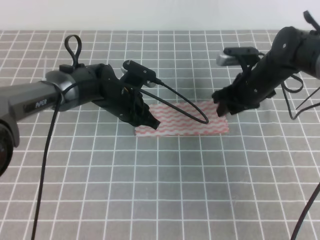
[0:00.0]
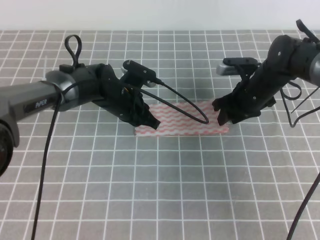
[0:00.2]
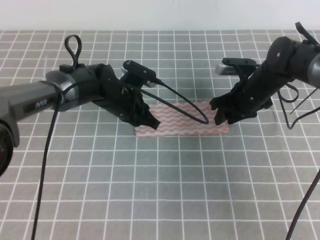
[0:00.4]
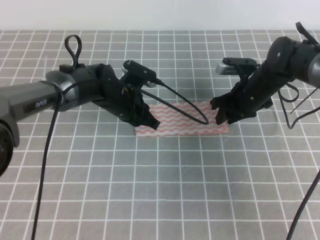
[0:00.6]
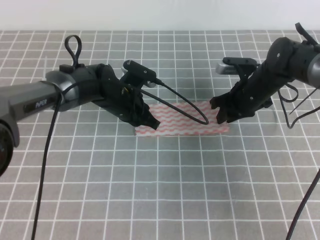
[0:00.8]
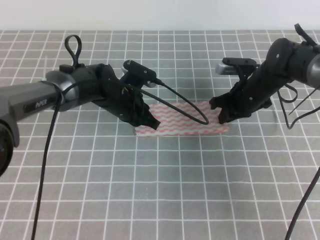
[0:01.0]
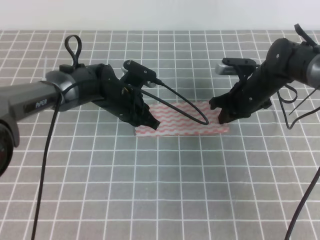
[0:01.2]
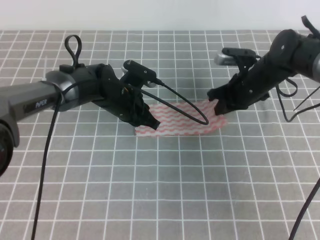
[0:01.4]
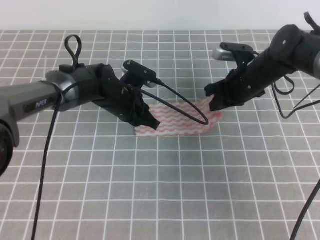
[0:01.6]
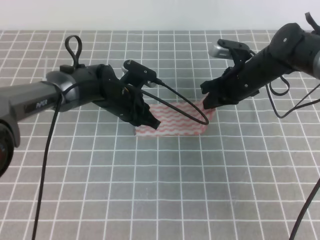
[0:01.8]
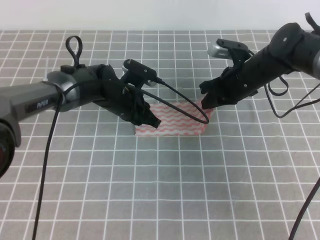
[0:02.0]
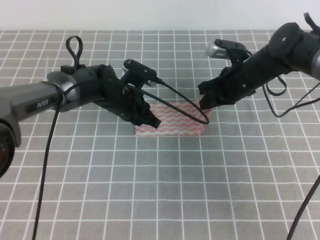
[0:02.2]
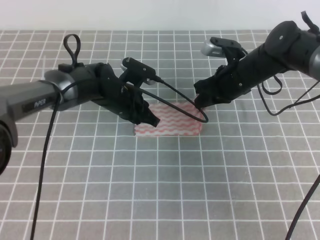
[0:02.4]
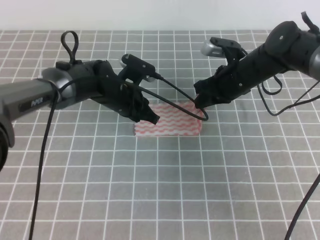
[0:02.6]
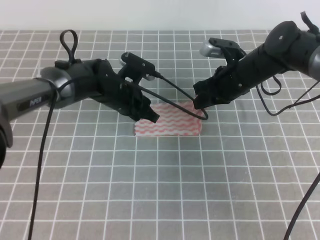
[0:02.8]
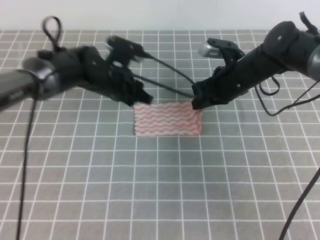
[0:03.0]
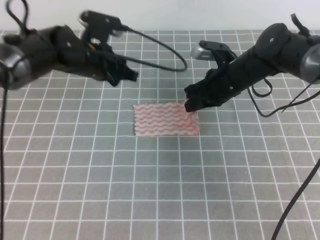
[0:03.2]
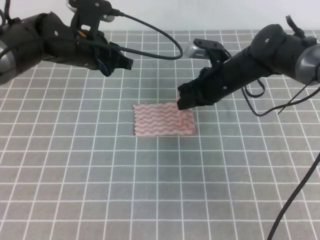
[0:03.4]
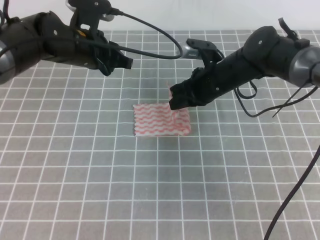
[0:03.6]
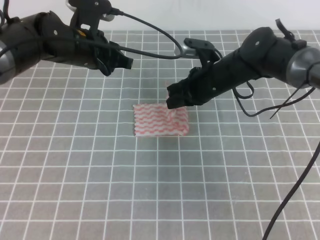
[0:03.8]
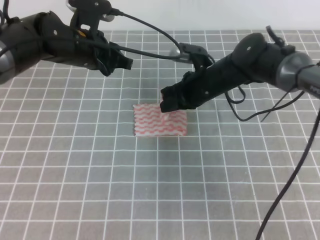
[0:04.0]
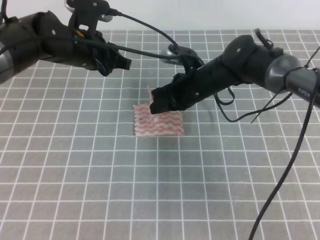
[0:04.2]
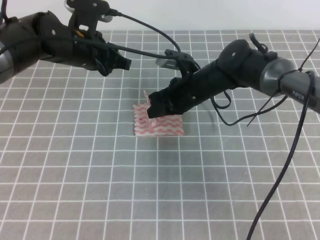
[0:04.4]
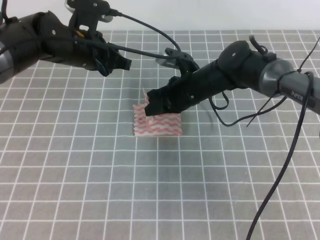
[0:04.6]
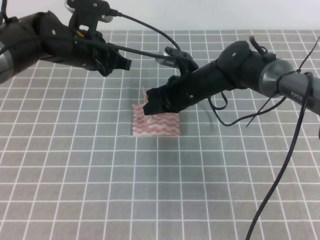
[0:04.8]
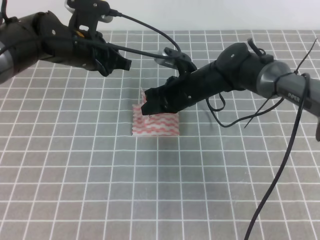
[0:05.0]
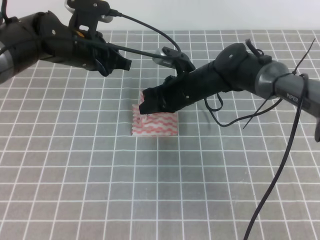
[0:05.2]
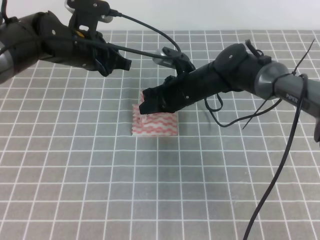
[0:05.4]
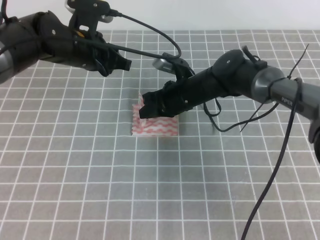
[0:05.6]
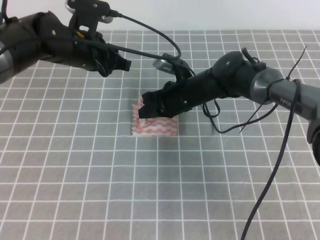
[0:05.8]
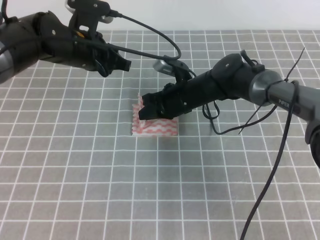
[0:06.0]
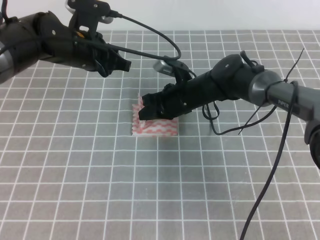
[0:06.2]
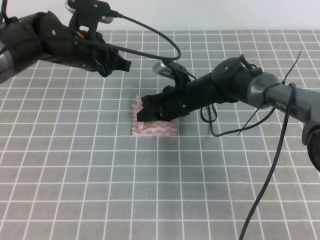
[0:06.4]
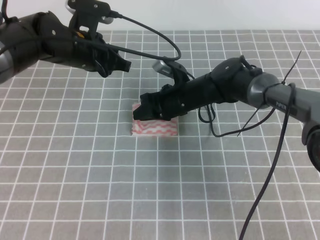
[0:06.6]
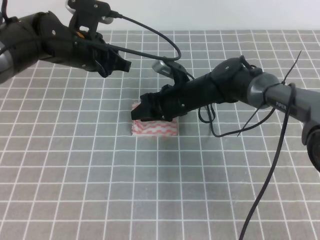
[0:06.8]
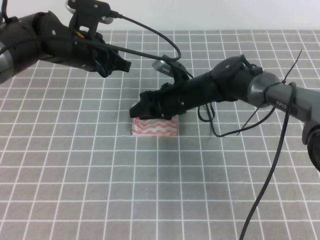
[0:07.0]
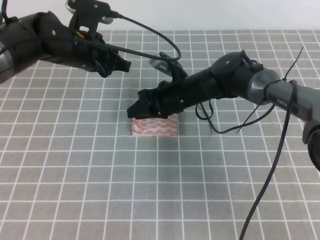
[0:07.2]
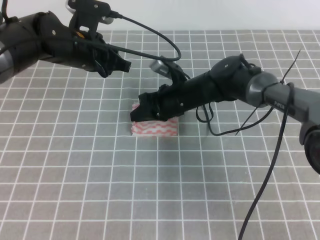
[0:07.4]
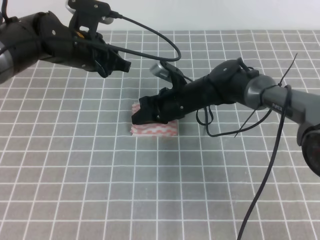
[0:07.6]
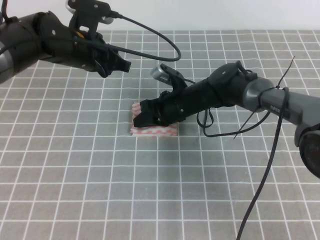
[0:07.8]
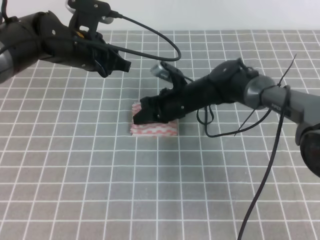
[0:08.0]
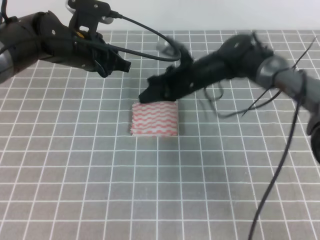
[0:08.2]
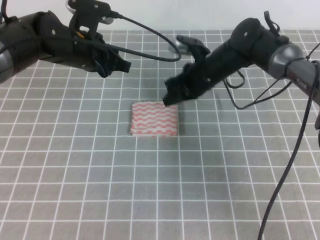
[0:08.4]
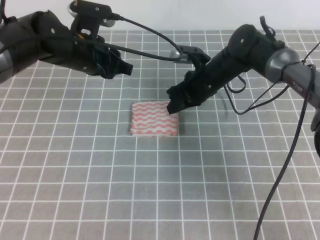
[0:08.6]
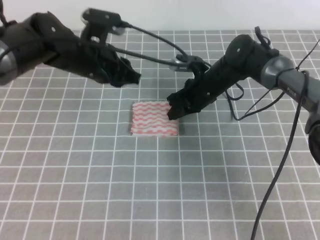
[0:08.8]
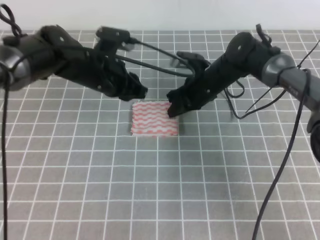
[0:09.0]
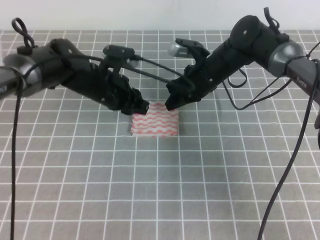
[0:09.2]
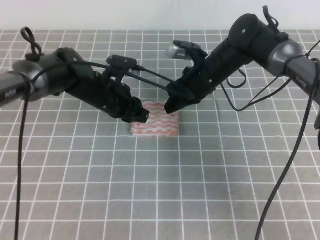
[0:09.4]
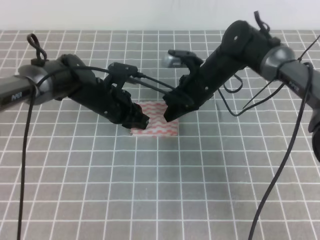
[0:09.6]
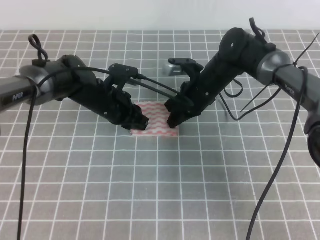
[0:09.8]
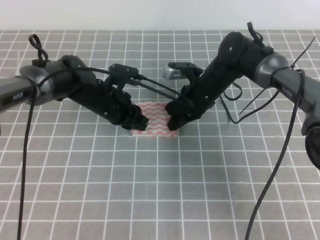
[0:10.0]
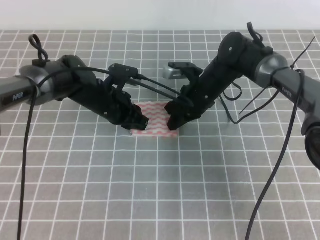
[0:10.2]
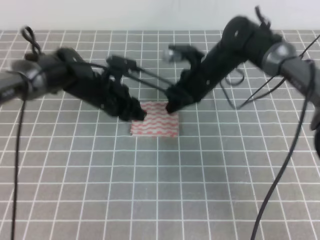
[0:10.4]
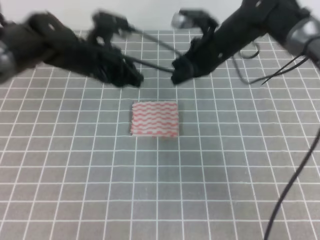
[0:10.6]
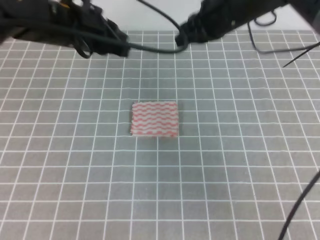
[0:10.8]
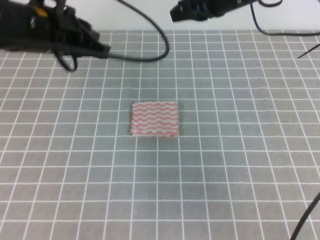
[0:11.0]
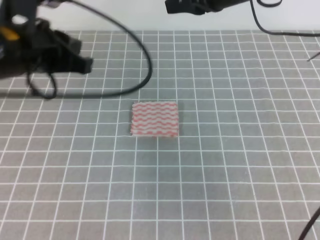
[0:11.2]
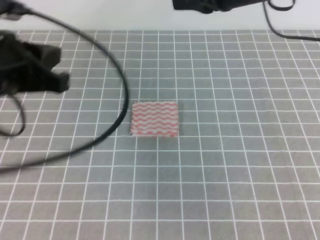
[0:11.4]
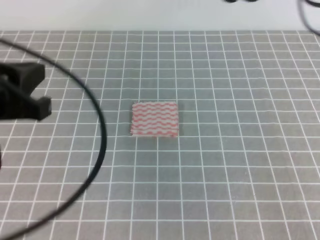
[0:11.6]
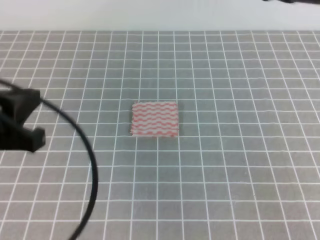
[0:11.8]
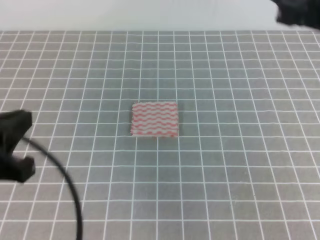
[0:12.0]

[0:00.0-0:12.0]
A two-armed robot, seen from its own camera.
0:00.0 to 0:01.6: The right gripper closes up.
0:01.6 to 0:03.0: The left gripper travels upward by approximately 5 cm, and opens its fingers.
0:03.0 to 0:04.4: The right gripper moves to the left, about 10 cm. Meanwhile the left gripper shifts approximately 5 cm upward.
0:04.4 to 0:06.0: The grippers stay close to where they were, moving slightly.
0:06.0 to 0:07.6: The right gripper opens, then closes again.
0:07.6 to 0:09.0: The right gripper heads to the right, covering about 5 cm.
0:10.4 to 0:12.0: The left gripper goes about 30 cm backward, upward and to the left; the right gripper goes about 30 cm upward, backward and to the right.

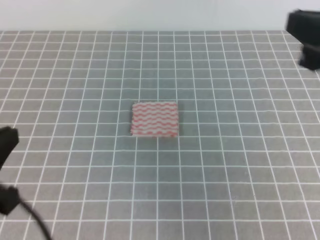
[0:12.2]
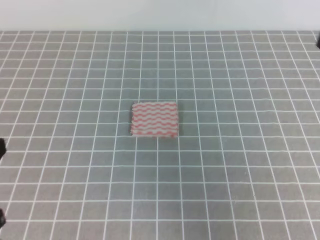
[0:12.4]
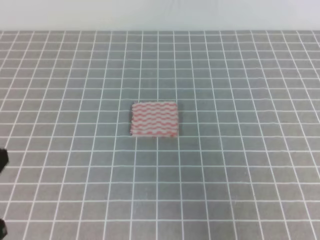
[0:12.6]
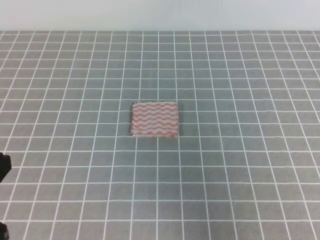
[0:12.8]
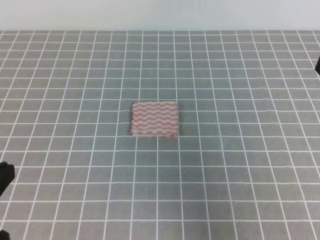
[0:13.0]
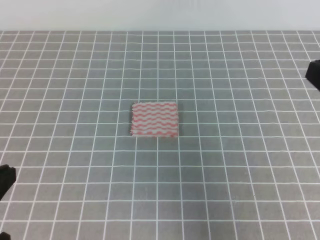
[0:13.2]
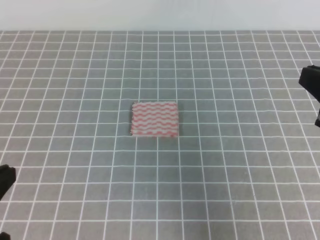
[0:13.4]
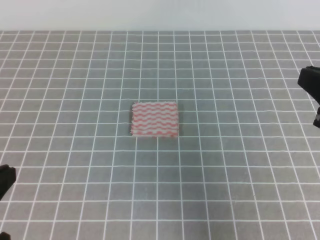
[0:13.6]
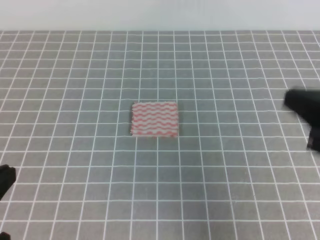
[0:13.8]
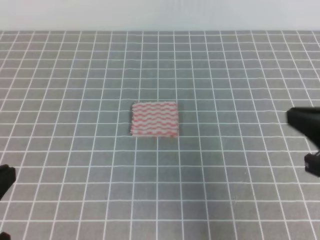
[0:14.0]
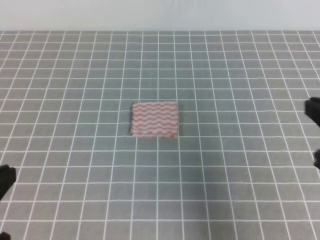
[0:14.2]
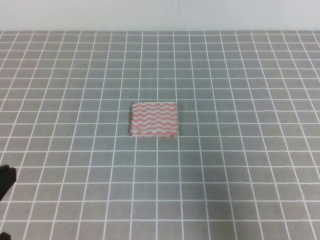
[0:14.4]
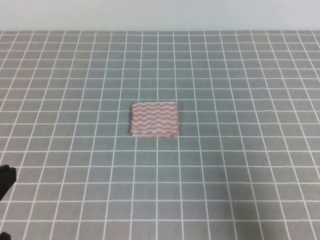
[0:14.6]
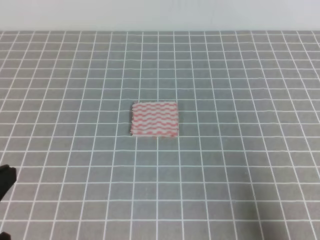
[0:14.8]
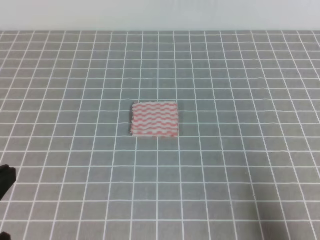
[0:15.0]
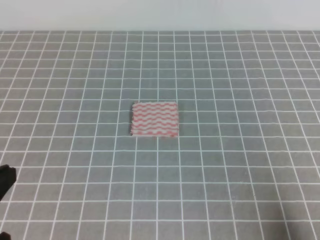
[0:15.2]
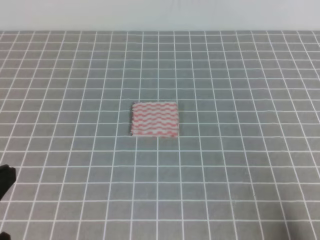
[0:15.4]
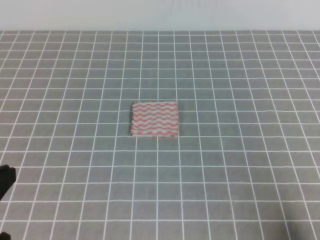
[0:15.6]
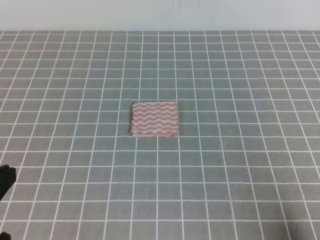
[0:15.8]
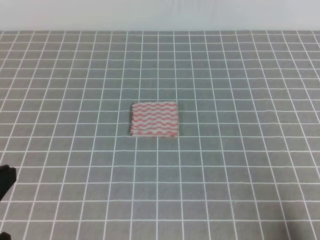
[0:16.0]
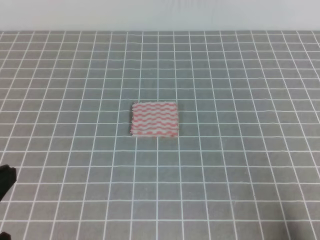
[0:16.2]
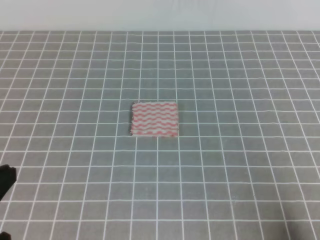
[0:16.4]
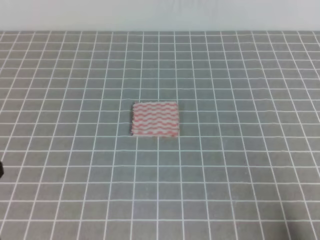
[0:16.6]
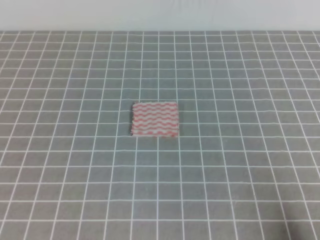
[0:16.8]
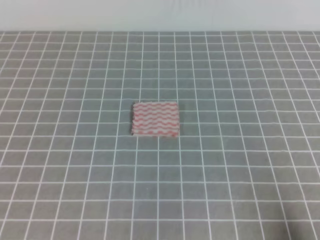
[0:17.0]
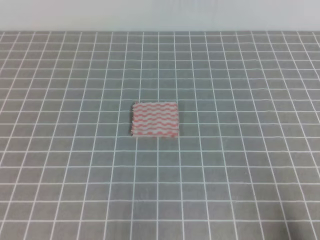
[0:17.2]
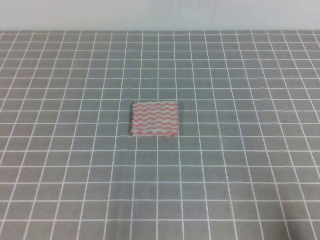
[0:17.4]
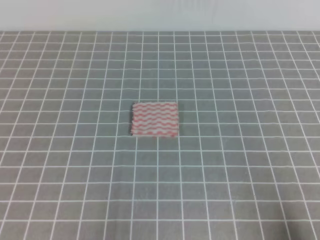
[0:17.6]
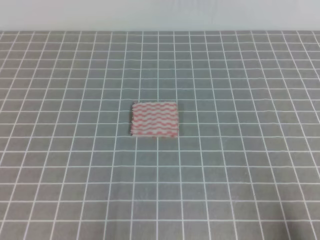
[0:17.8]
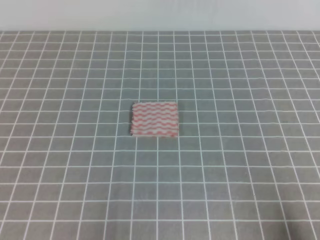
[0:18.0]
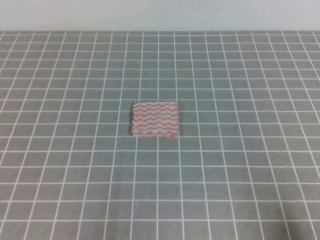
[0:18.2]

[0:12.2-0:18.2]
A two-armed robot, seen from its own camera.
Step, 0:12.2 to 0:18.2: Fold the towel.
0:12.2 to 0:13.8: The right gripper is displaced downward by roughly 5 cm.
0:13.8 to 0:15.2: The right gripper shifts roughly 20 cm downward, backward and to the right.
